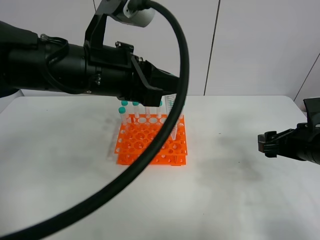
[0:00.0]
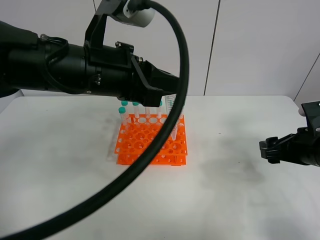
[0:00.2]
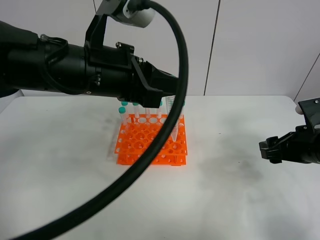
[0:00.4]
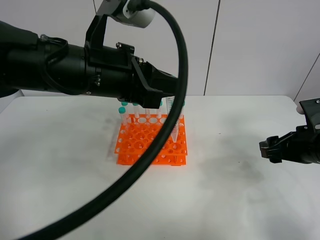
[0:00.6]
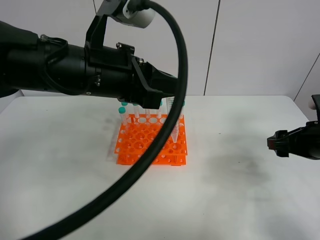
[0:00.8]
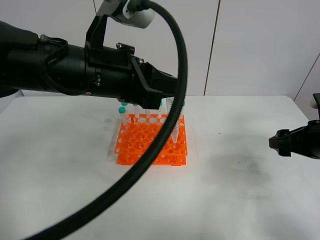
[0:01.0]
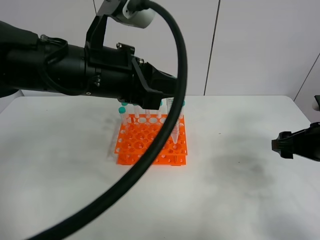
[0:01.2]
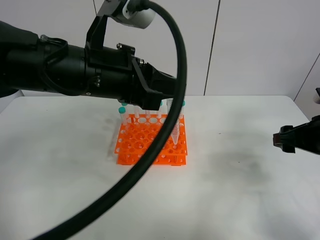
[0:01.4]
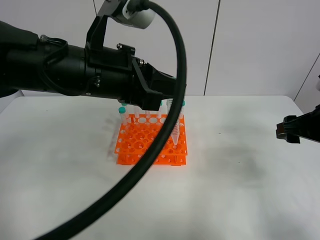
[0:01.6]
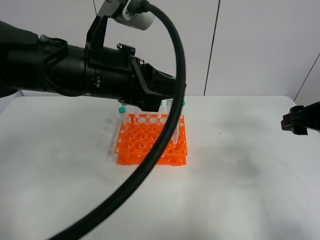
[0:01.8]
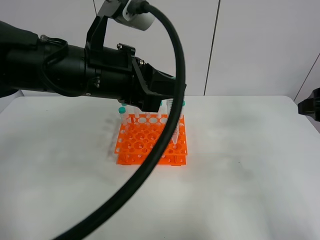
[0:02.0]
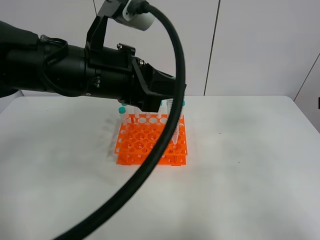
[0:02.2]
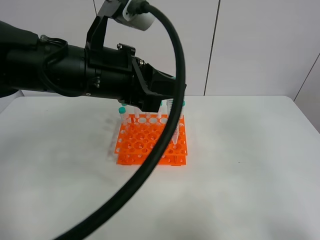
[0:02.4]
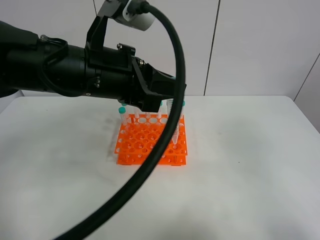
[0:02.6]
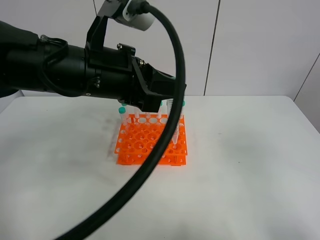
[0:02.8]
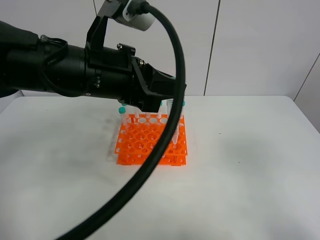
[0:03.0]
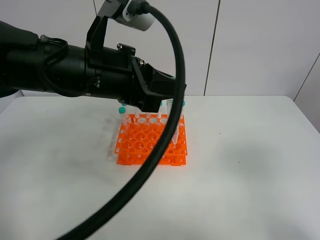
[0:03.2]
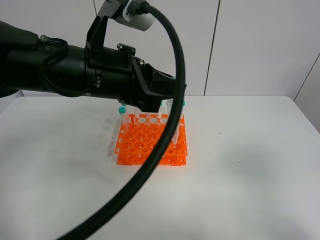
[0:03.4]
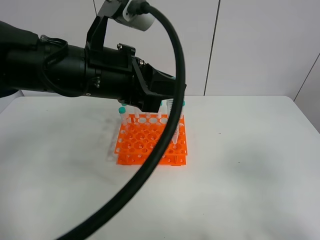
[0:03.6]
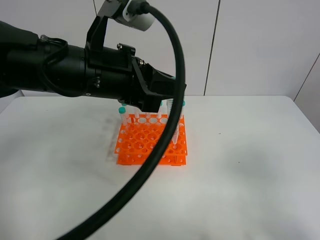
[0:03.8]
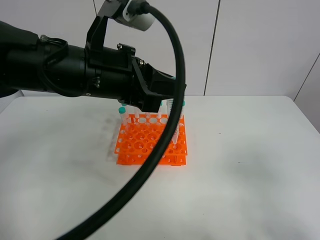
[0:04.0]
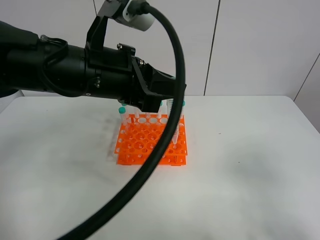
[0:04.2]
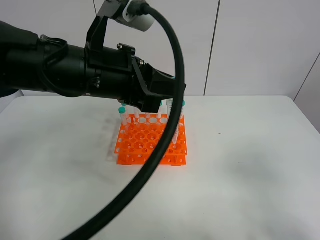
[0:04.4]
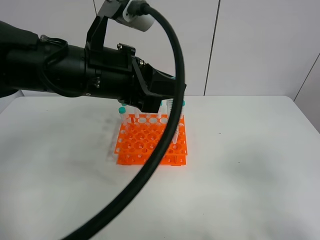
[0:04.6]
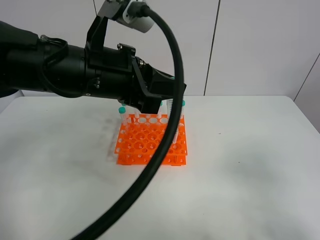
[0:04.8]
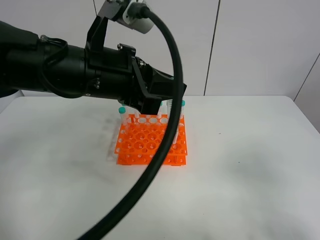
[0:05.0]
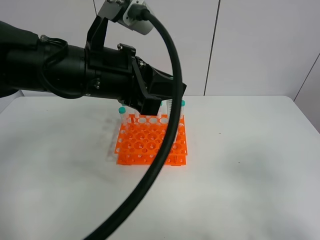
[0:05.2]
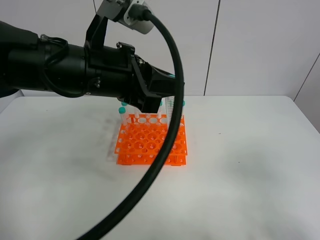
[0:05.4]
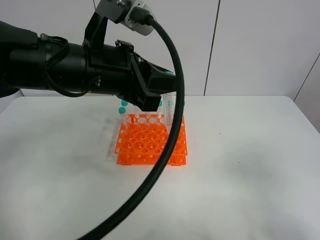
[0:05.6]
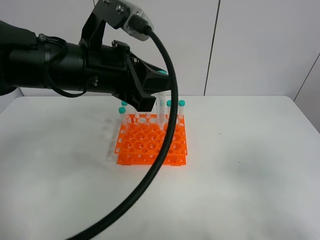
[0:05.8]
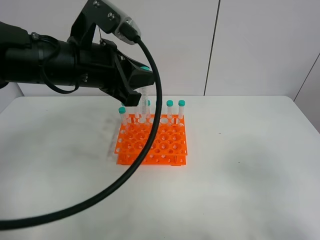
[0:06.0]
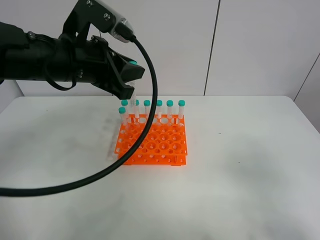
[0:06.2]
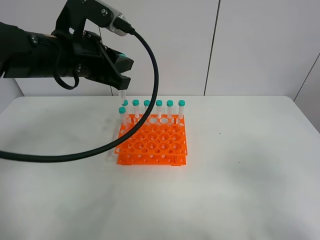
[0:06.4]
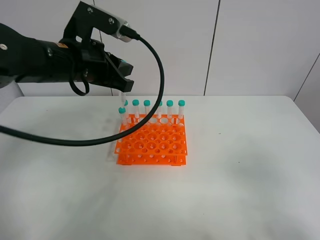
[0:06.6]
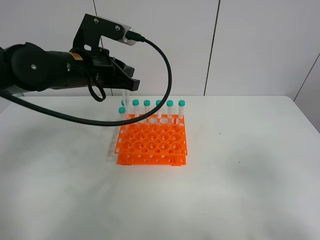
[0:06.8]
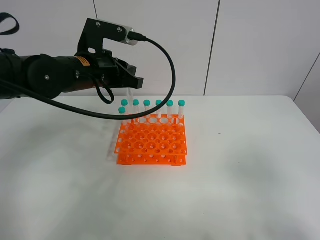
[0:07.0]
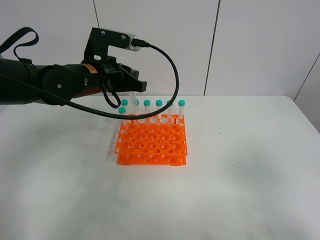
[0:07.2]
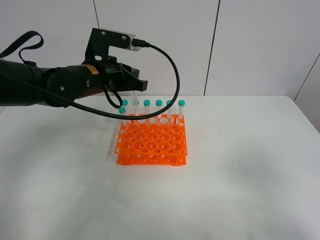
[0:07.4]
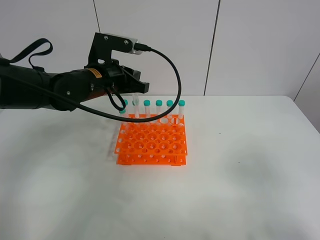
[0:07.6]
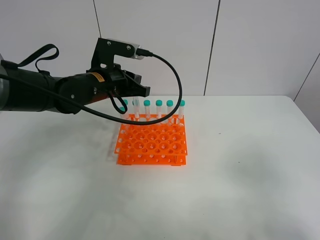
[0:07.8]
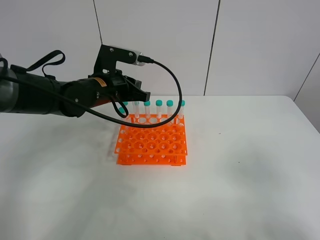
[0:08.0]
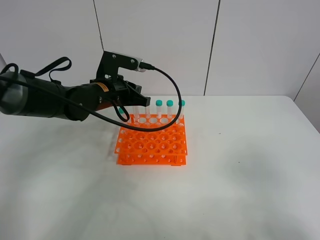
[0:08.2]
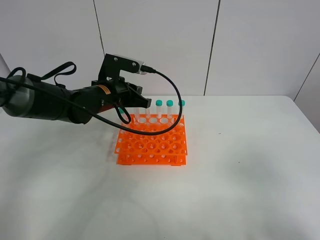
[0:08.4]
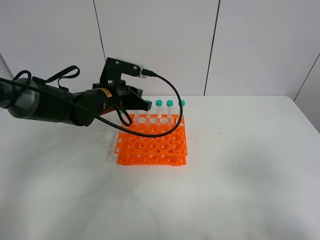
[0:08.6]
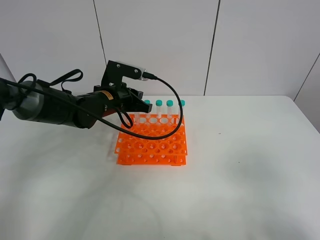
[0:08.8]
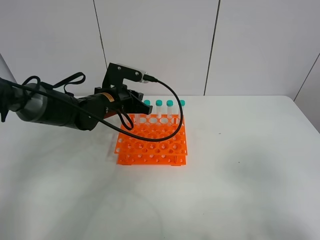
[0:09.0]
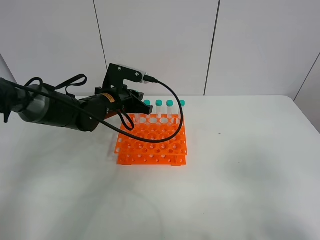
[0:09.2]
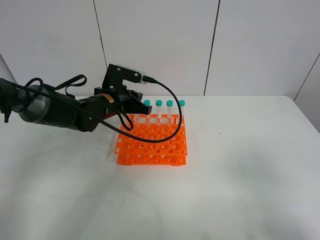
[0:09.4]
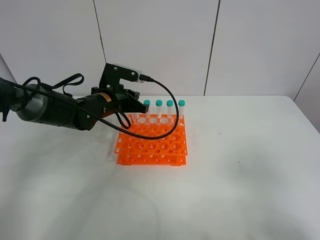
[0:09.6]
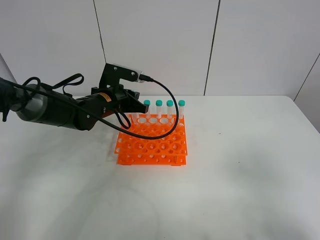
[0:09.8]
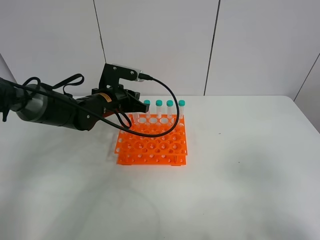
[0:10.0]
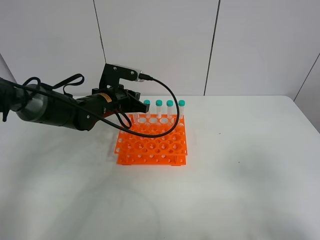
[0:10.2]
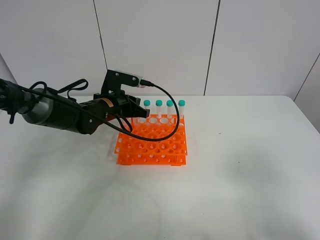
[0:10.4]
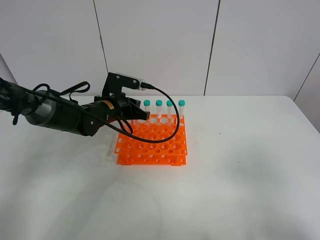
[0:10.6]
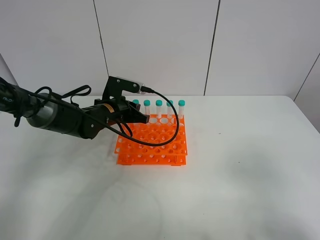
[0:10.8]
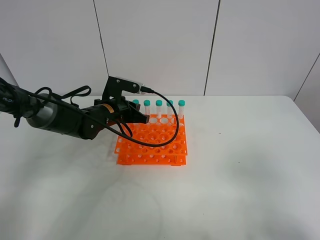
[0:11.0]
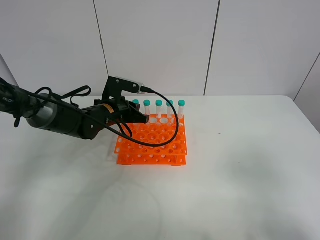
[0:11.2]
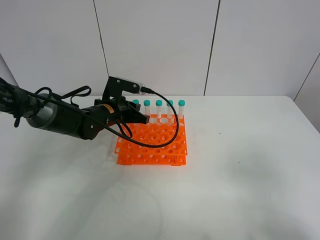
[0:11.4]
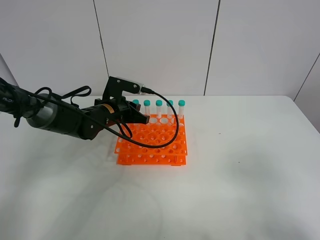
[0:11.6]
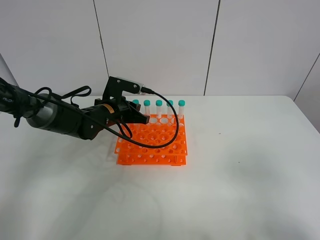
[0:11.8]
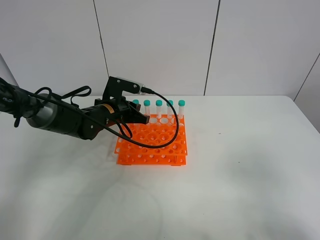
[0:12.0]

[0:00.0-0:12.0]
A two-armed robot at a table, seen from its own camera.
Task of the whole recording: Put the test tube on the table back onto the test tube rack.
0:00.0 to 0:01.6: The right gripper shifts some 5 cm upward.
0:01.6 to 0:03.0: The right gripper goes roughly 25 cm backward and upward.
0:03.0 to 0:04.4: The right gripper is displaced downward by some 5 cm.
0:04.4 to 0:06.0: There are only small adjustments of the grippers.
0:06.0 to 0:07.6: The left gripper shifts about 10 cm forward and downward.
0:07.6 to 0:09.0: The left gripper is displaced downward by approximately 5 cm.
0:09.0 to 0:10.4: The grippers stay close to where they were, moving slightly.
0:10.4 to 0:12.0: The two grippers keep their place.

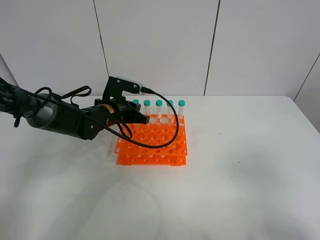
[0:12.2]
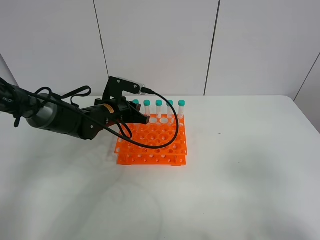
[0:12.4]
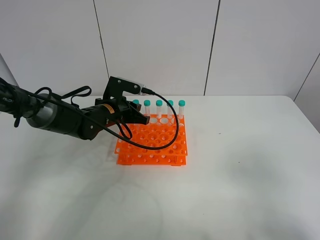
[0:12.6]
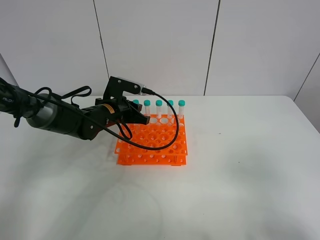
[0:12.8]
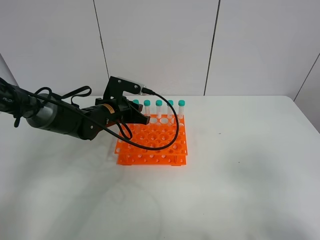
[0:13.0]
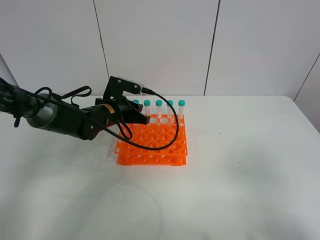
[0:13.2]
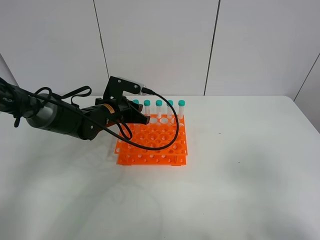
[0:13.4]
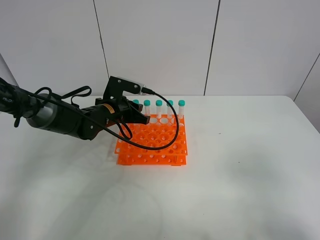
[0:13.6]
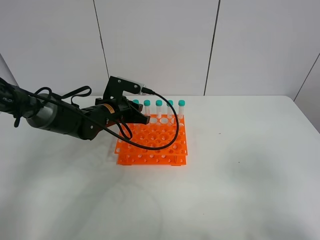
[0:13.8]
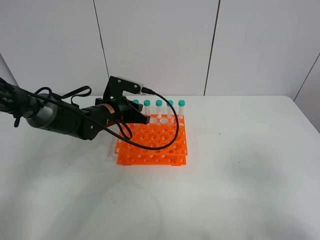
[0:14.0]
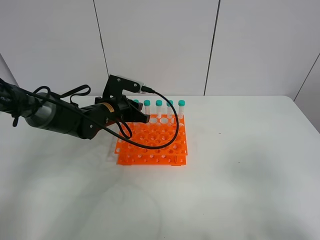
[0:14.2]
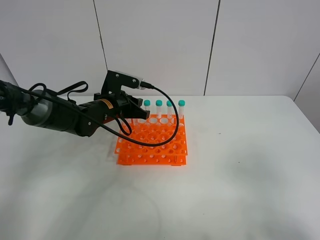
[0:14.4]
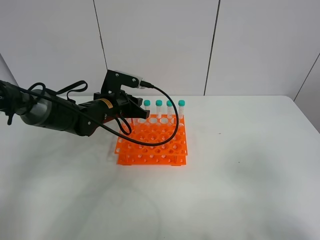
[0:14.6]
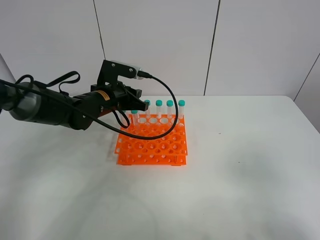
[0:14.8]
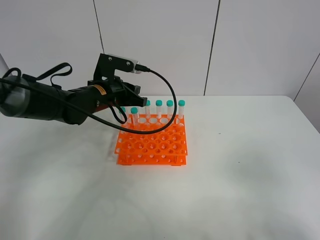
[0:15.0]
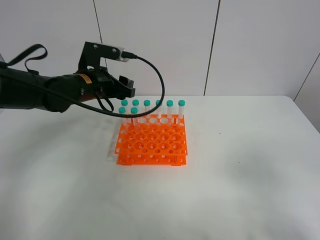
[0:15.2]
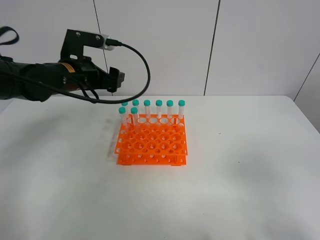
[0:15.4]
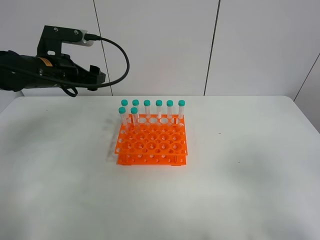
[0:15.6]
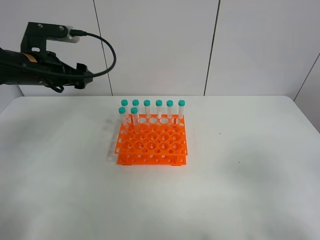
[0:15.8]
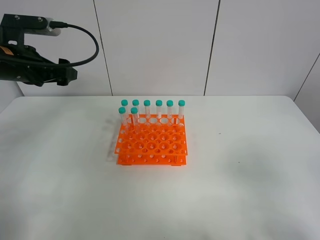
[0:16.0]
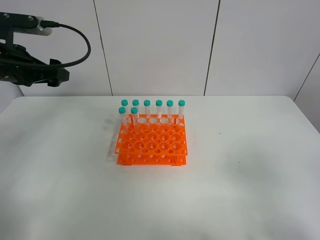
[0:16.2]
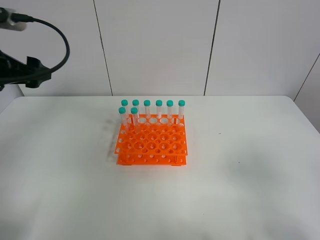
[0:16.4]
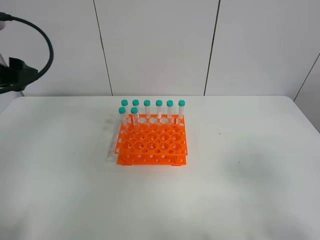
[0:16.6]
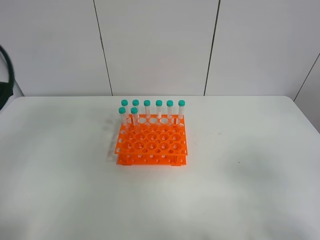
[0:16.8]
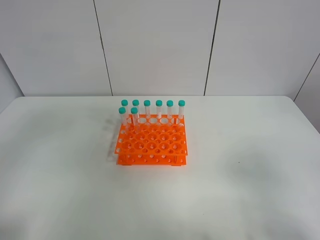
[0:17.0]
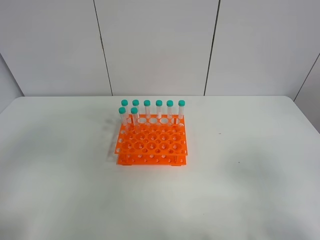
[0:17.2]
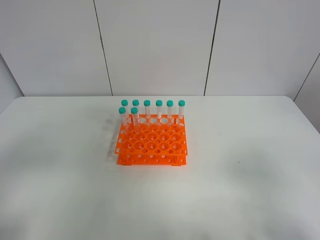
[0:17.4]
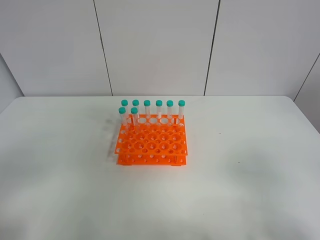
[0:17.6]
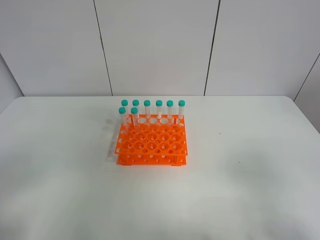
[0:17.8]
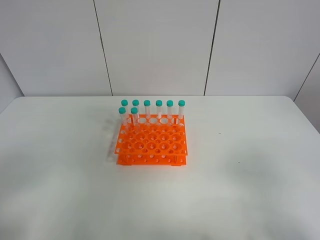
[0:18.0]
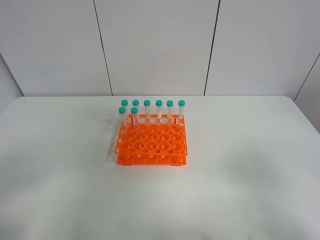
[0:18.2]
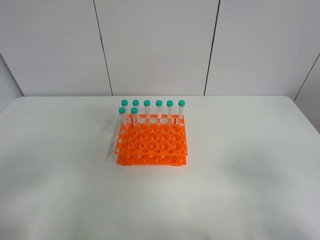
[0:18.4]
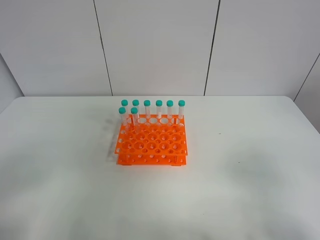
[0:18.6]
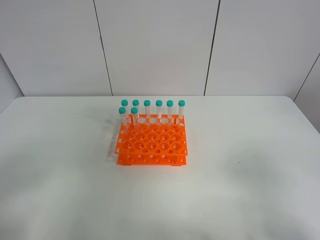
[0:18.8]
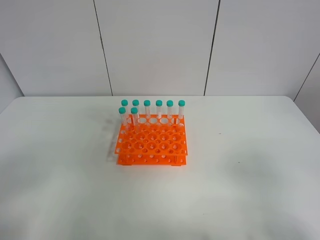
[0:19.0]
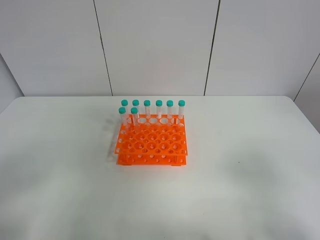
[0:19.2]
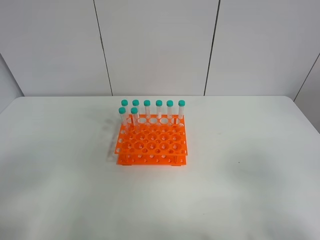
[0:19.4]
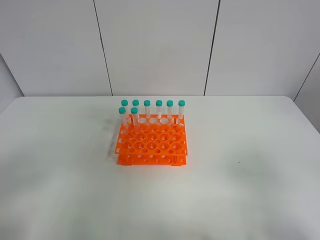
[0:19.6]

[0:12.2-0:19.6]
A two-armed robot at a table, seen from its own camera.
Task of the whole recording: Put the test tube on the table back onto the test tube rack.
Step, 0:12.2 to 0:15.4: Place the test tube on the test tube rack with the left gripper.
0:12.2 to 0:13.6: The two grippers keep their place.
0:13.6 to 0:15.2: The left gripper heads upward, covering some 10 cm, and opens.
0:15.2 to 0:16.6: The left gripper is displaced to the left, backward and upward by approximately 20 cm.
0:16.6 to 0:18.2: The left gripper shifts about 25 cm backward.
